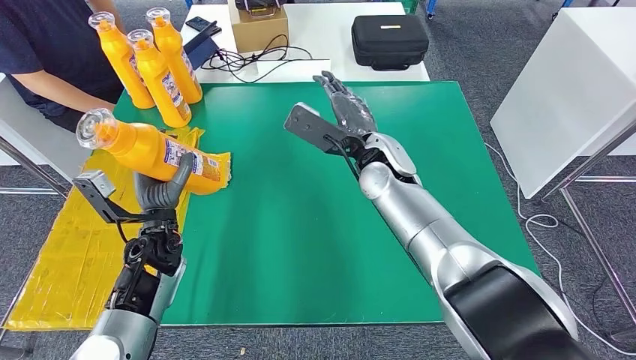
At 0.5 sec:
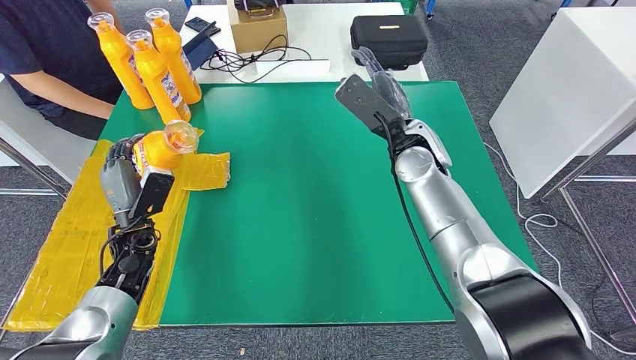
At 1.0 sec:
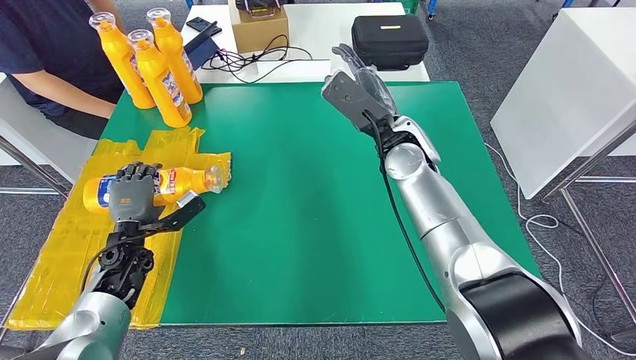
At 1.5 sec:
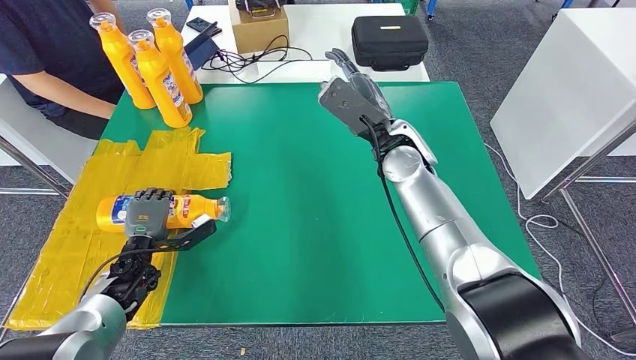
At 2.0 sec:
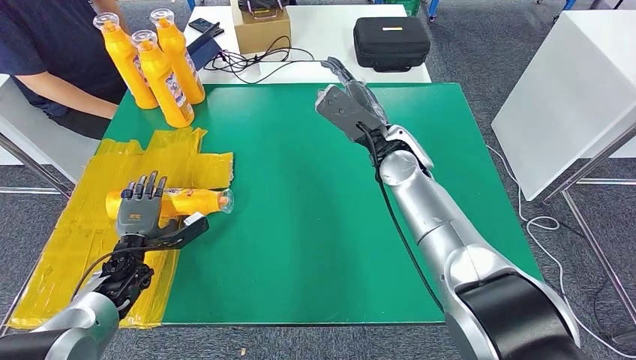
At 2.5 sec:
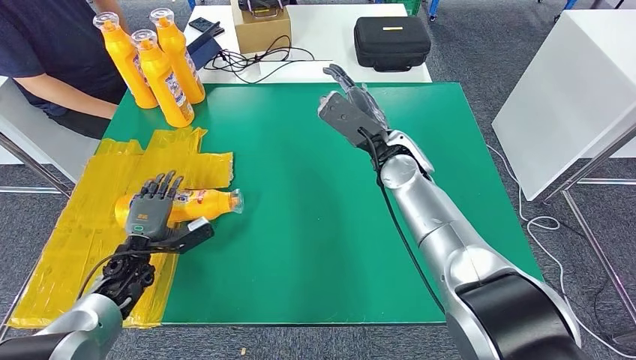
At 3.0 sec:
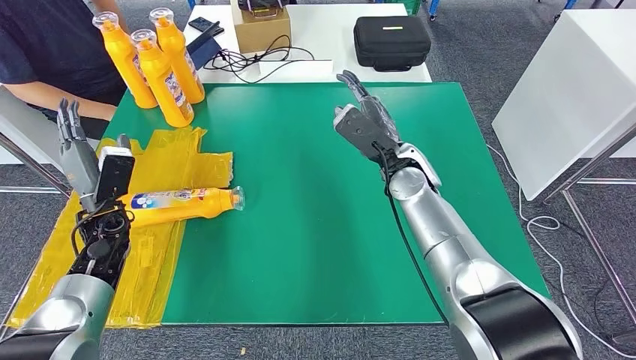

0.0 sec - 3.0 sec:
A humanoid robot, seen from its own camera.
Step, 0.0 sec - 3.0 sec: Flip the fast-moving consumer goods bottle to the front side.
0.0 sec - 1.5 sec: The left hand heads downward and to the left, covering some 10 cm.
